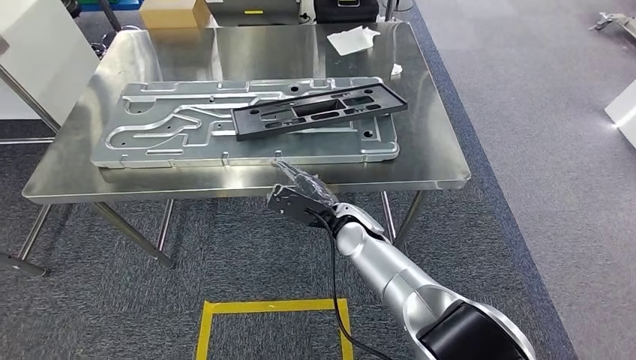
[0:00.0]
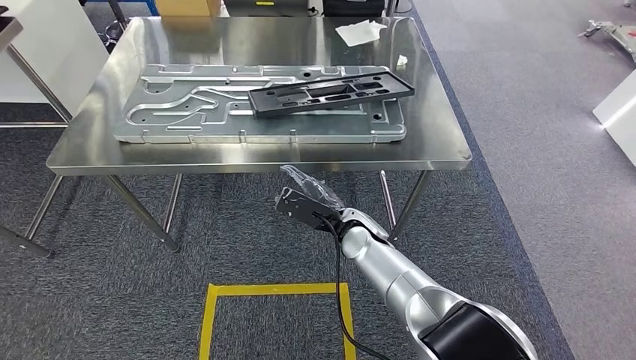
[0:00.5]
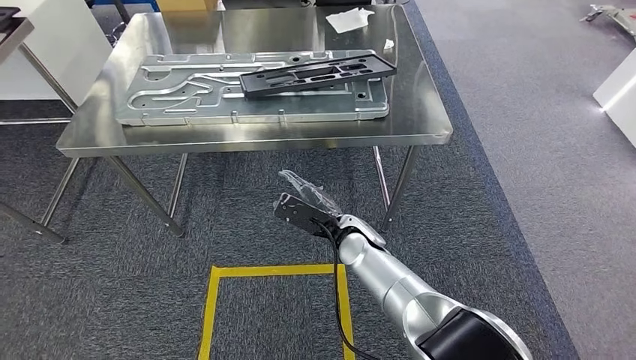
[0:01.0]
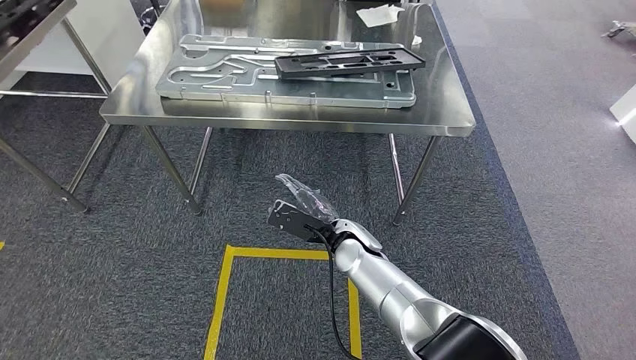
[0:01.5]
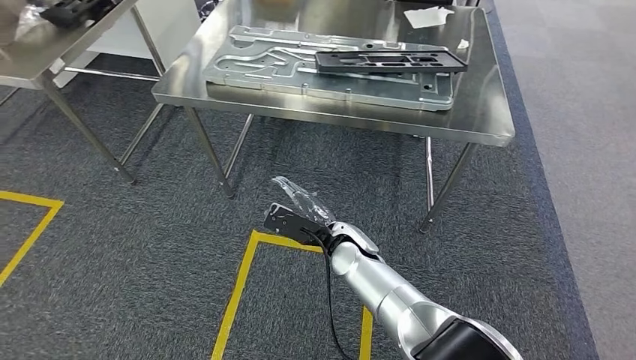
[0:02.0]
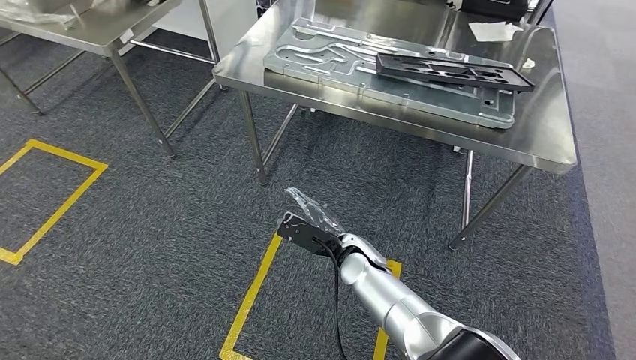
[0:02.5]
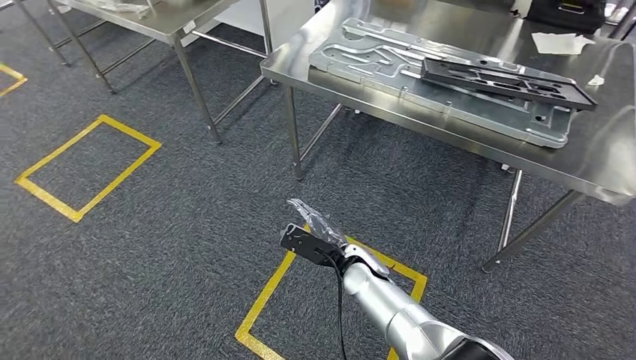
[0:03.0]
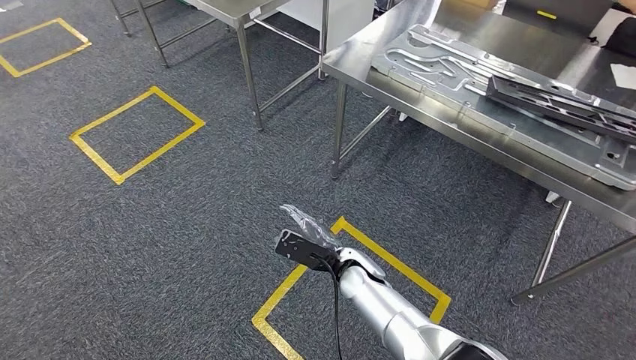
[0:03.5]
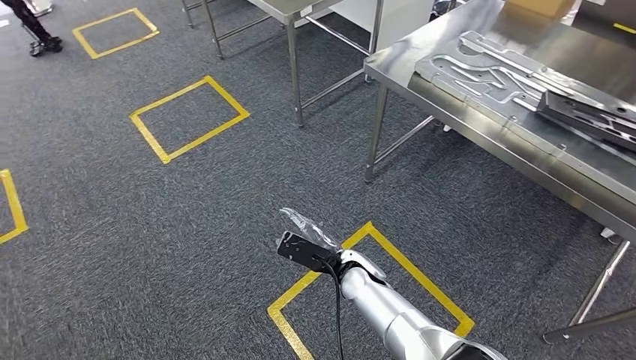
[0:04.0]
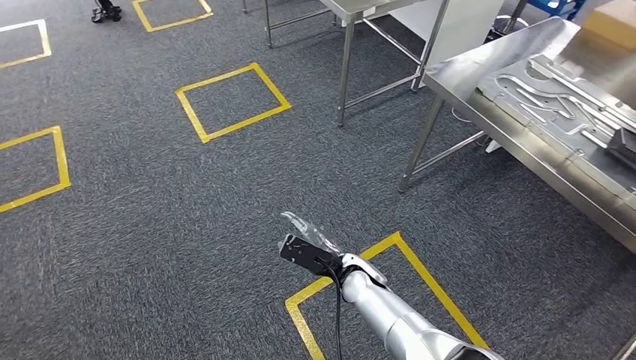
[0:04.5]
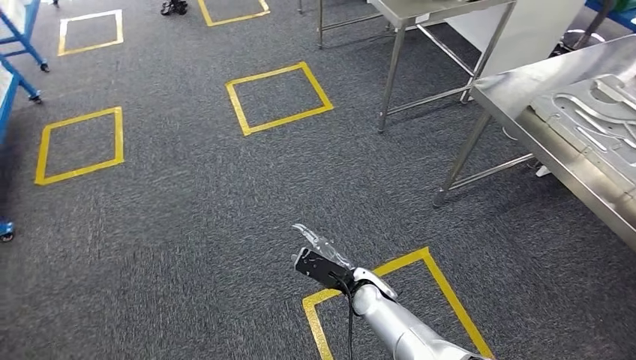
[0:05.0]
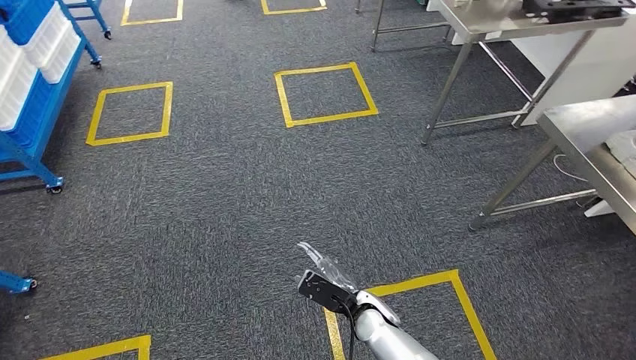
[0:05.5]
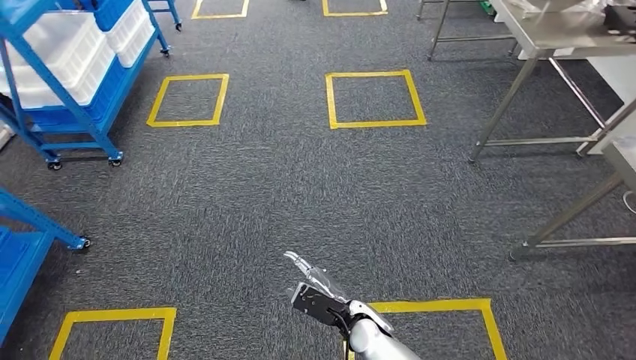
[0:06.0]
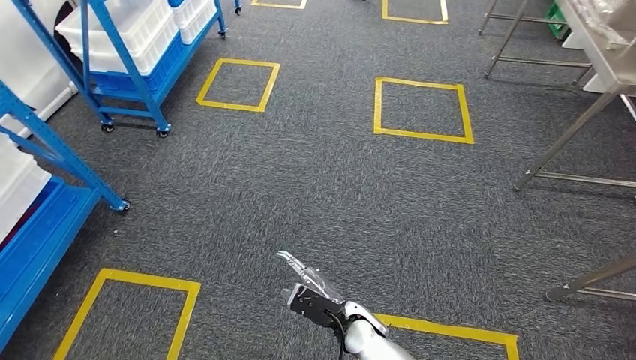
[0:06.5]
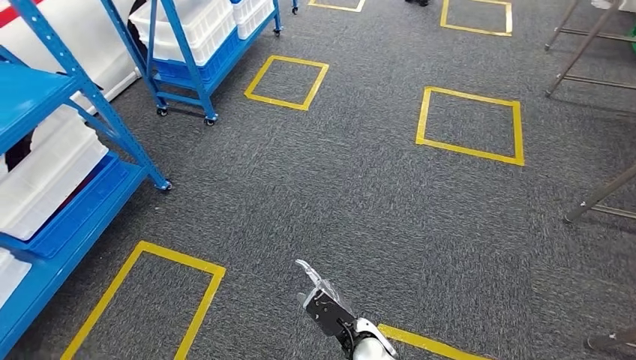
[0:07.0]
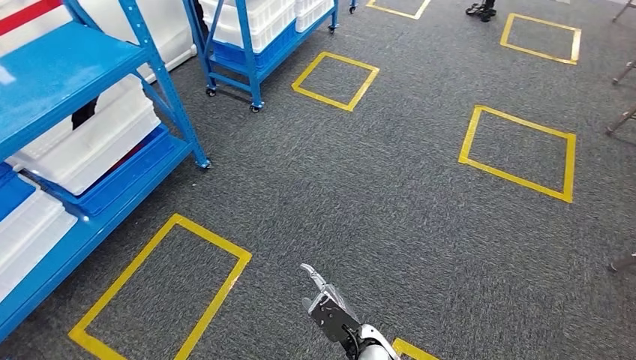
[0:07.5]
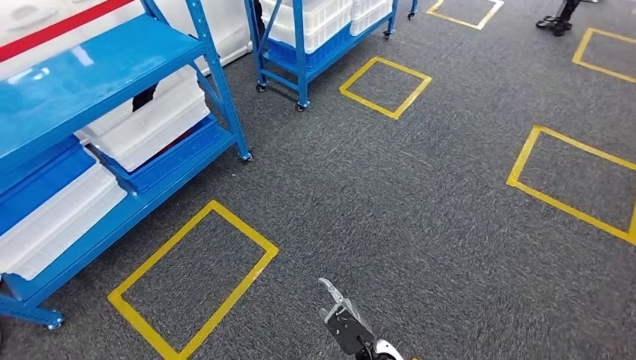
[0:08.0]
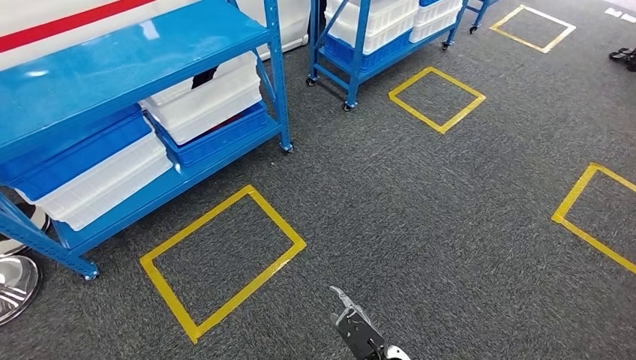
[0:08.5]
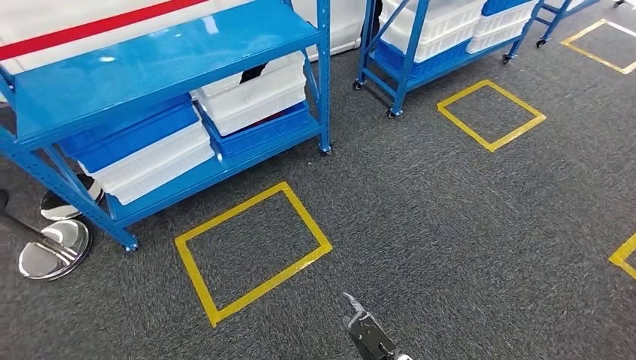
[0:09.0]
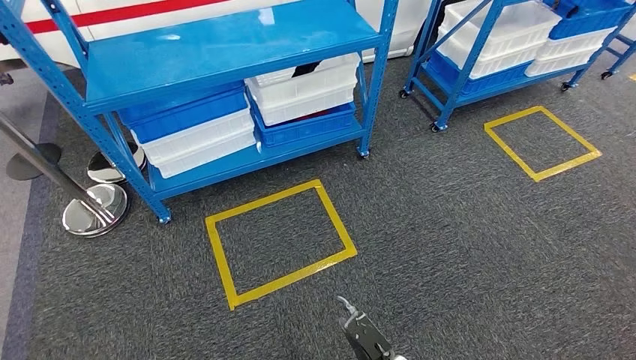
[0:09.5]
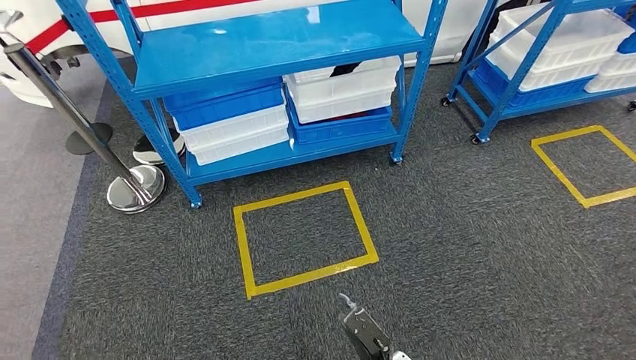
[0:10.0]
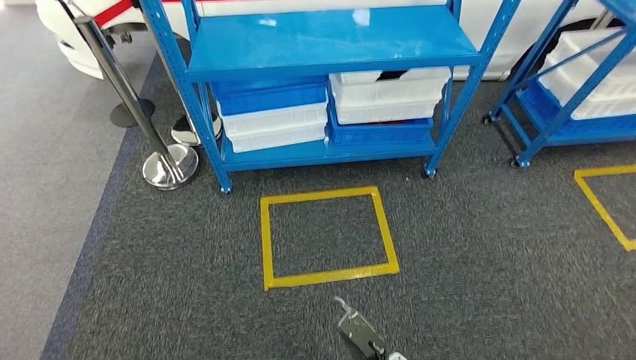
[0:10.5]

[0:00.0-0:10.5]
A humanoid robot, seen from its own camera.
Step, 0:00.0 to 0:10.5: Return to the initial position at the shelf.
